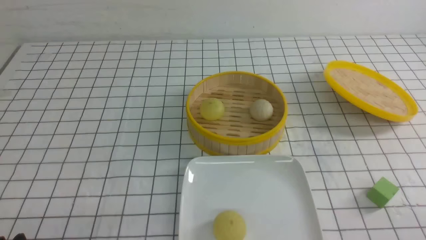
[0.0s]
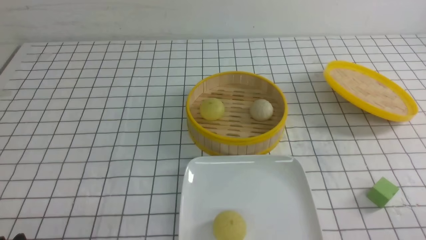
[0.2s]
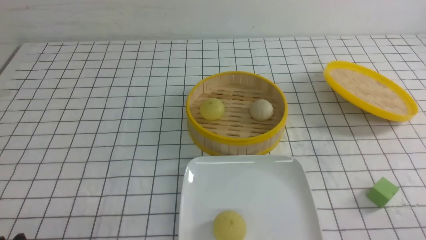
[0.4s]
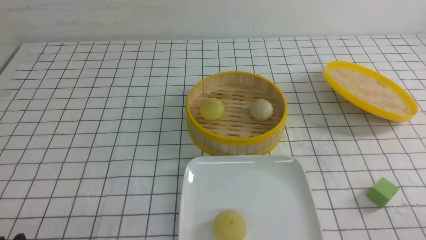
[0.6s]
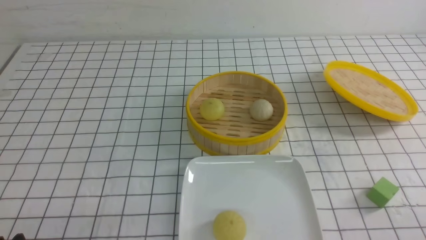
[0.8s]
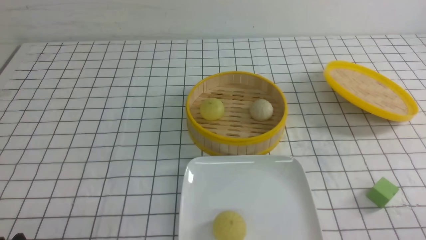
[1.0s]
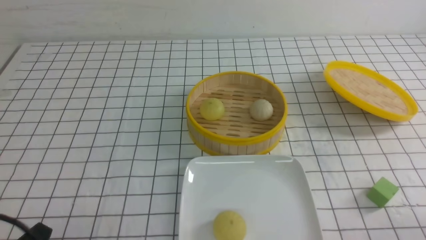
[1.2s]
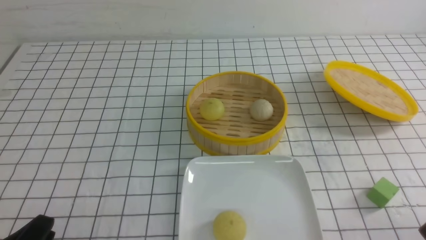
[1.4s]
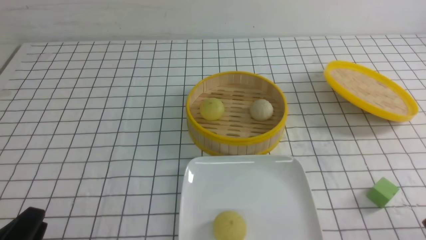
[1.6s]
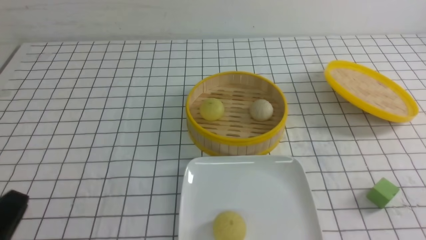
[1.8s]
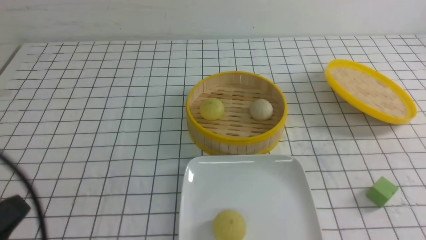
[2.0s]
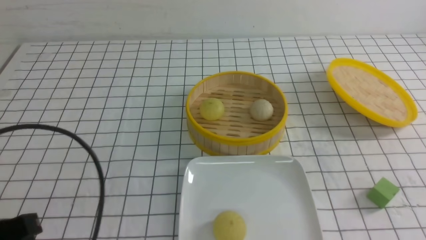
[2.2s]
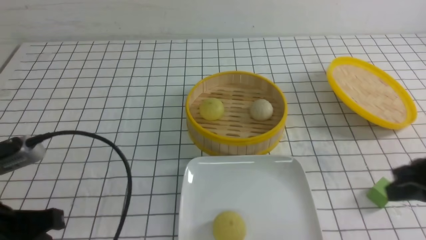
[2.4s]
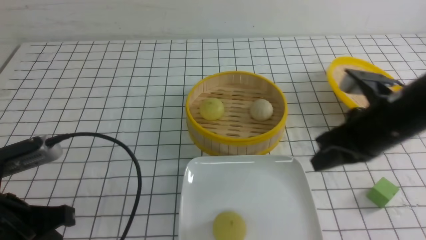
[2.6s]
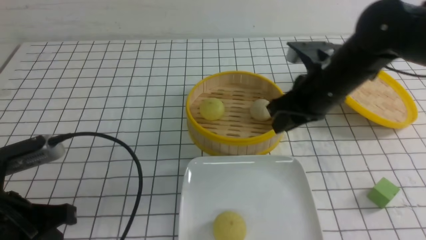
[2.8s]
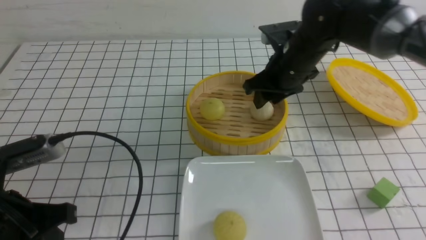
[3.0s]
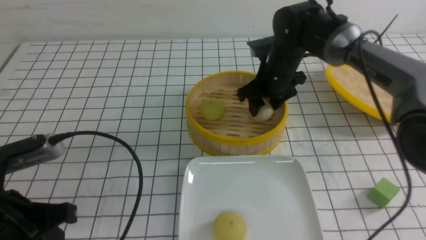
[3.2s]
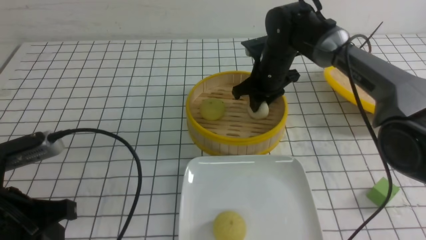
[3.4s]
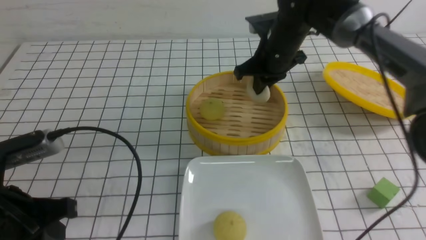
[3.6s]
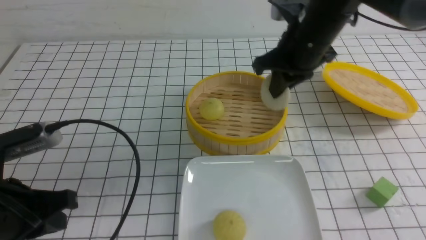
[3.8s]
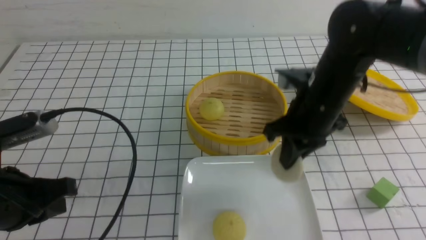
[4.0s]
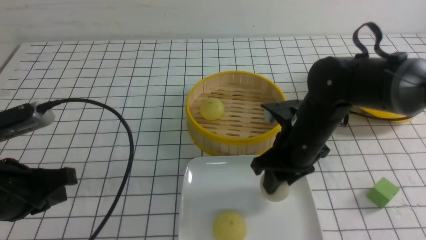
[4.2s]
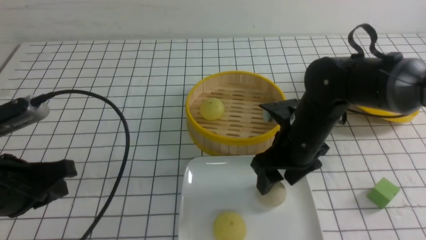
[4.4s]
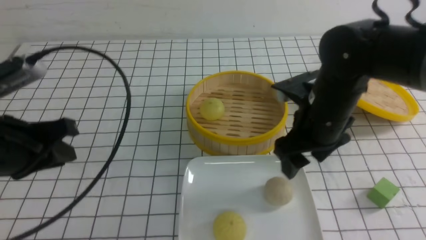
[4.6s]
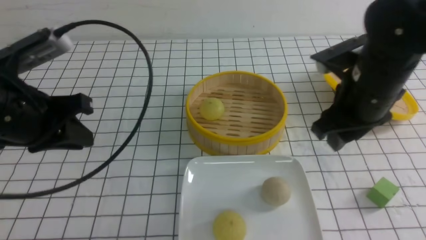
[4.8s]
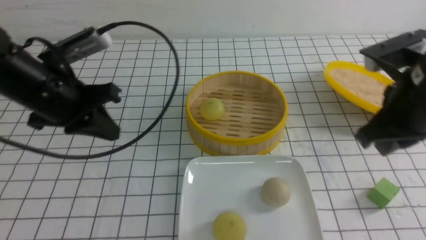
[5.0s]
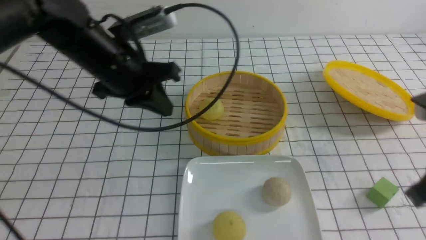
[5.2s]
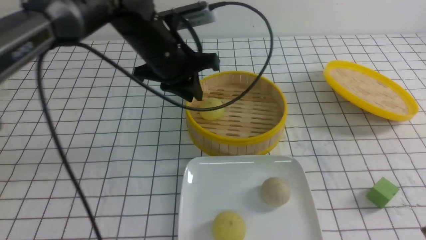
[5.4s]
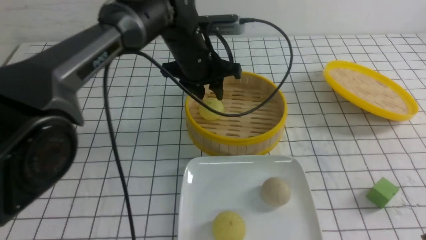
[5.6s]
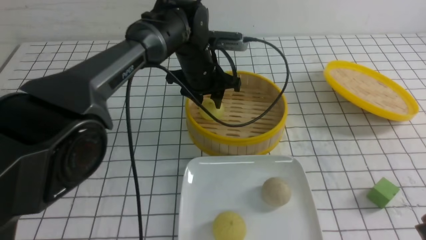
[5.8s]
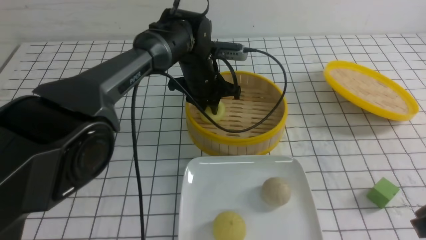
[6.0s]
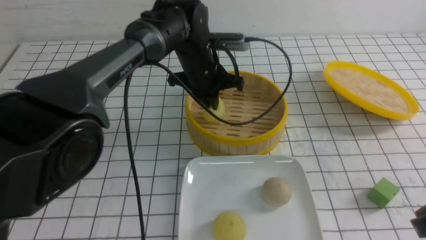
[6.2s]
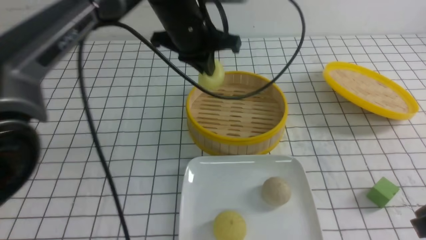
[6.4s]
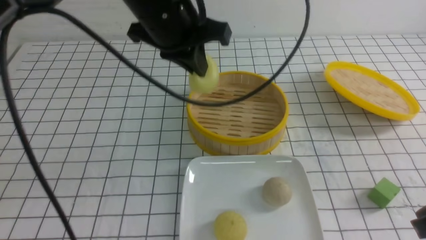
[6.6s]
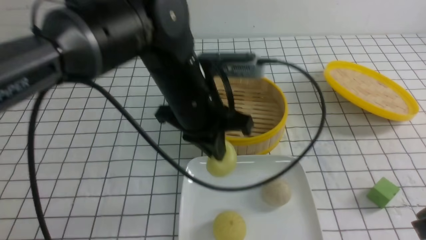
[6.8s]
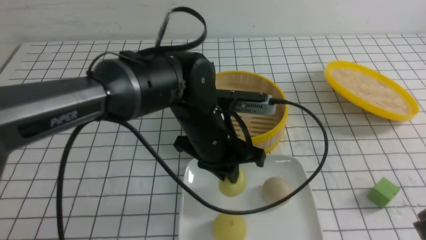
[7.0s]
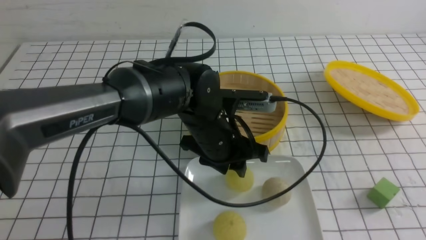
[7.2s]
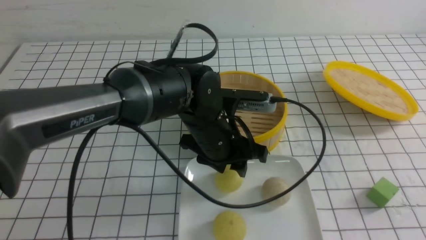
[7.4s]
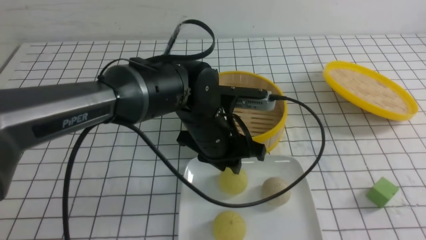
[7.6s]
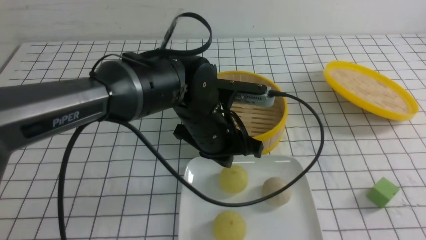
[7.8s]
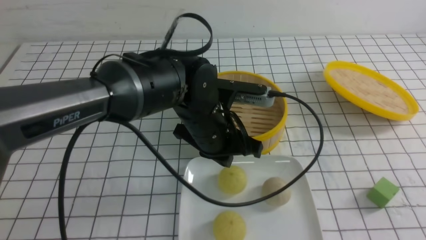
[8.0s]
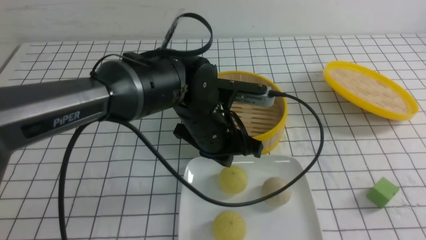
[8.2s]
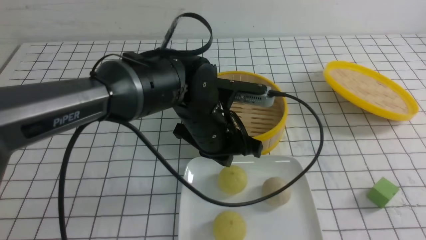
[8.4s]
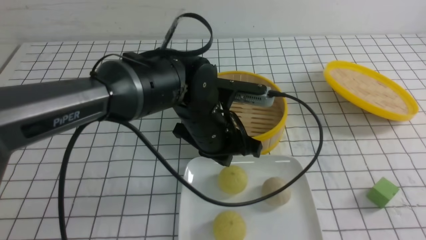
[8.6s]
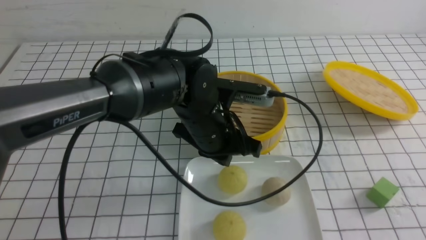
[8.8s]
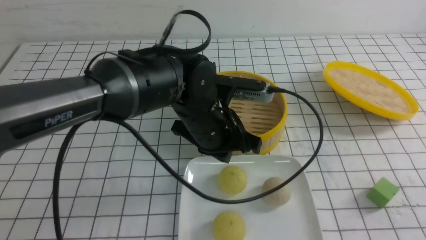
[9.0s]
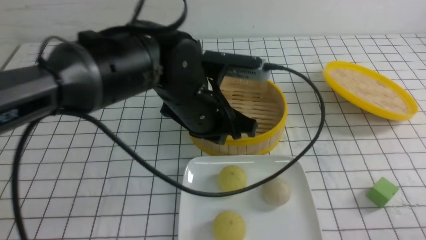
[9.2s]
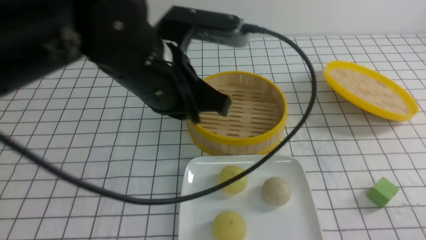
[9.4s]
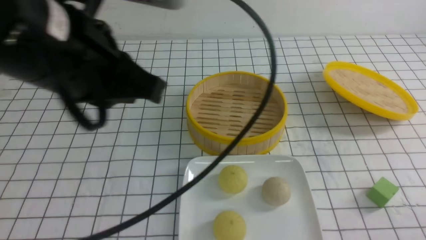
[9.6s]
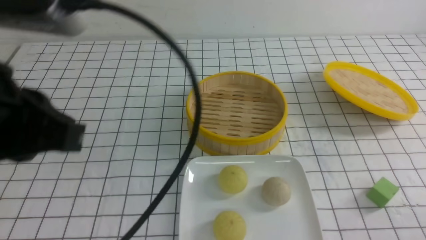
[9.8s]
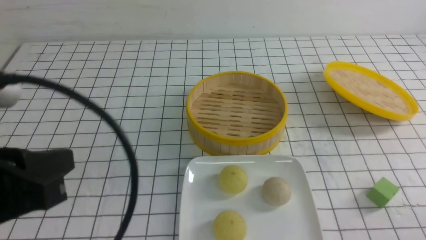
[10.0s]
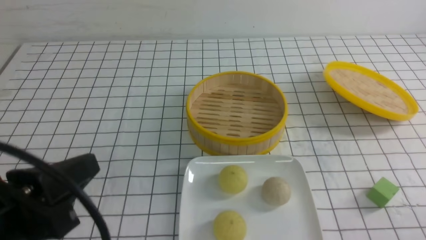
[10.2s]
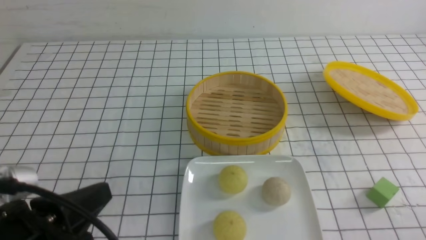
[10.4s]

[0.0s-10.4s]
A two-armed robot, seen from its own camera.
Step, 0.0s to 3.4s: use the right arm to grab the steamed stuffed bun that is closest to it.
Step, 3.8s to 4.6s: use the right arm to put the steamed stuffed bun into the plate.
Step, 4.8s to 6.2s: use the left arm to grab the steamed stuffed bun that is closest to it.
Step, 6.4s to 7.6s: use the left arm to put the steamed stuffed bun into the plate.
1.4s to 3.0s: The right gripper is displaced forward and to the left by roughly 40 cm, and closes, then opens again. Meanwhile the left gripper heads forward and upward, covering approximately 10 cm, and closes its fingers.
3.0s to 4.4s: The right gripper shifts some 10 cm backward, and closes, then opens again.
4.4s to 6.0s: The left gripper heads forward and to the right, covering some 35 cm, and opens, then closes once more, while the right gripper shifts roughly 20 cm backward and to the right, and closes.
6.0s to 7.4s: The left gripper moves backward, roughly 15 cm, and opens its fingers, while the right gripper heads backward and upward, covering about 10 cm.
7.4s to 9.0s: The right gripper moves downward, about 10 cm. The left gripper closes up.
9.0s to 10.4s: The right gripper heads downward, covering some 5 cm. The left gripper travels backward and to the left by some 30 cm.

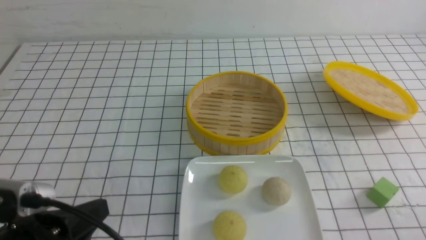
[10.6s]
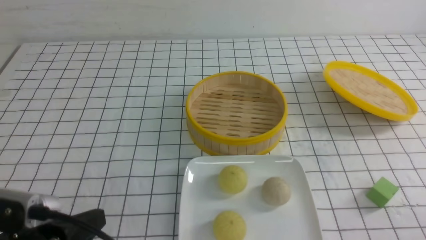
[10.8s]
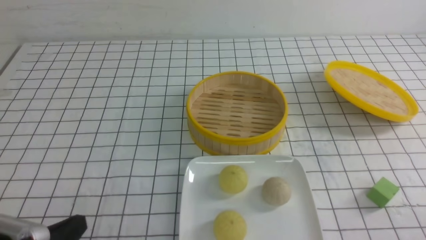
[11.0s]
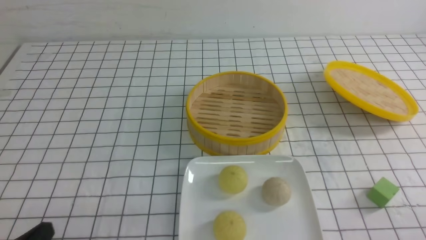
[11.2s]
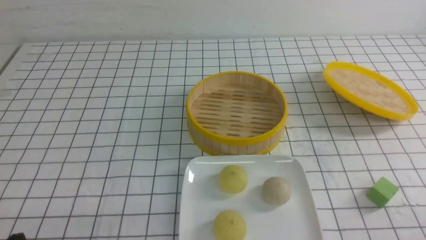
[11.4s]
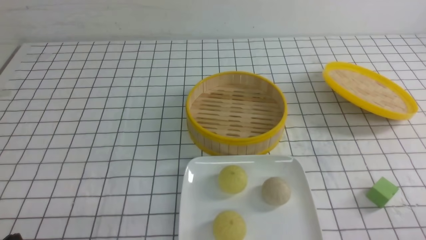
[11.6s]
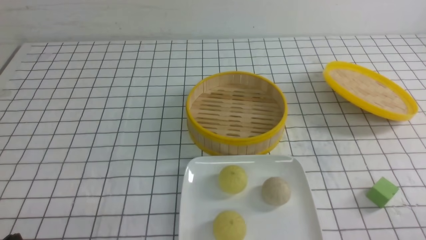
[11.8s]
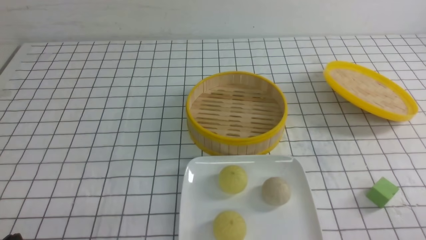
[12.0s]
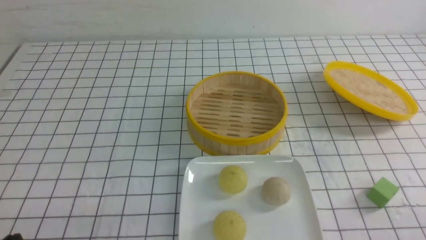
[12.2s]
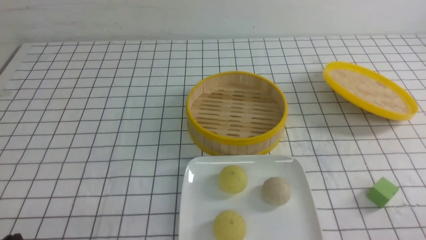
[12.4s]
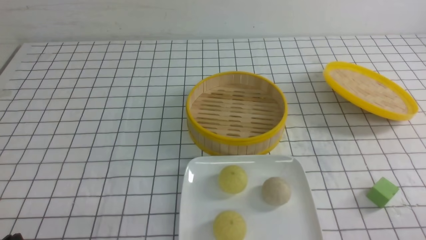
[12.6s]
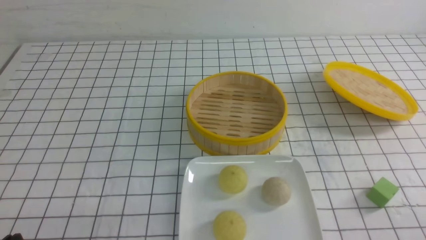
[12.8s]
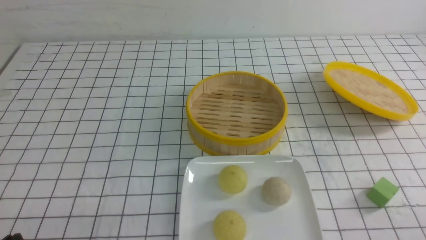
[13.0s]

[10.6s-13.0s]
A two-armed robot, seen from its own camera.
10.6s to 11.8s: The left gripper travels downward and to the left by some 10 cm.
11.8s to 13.0s: Neither gripper changes place.

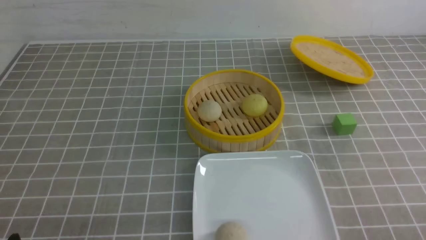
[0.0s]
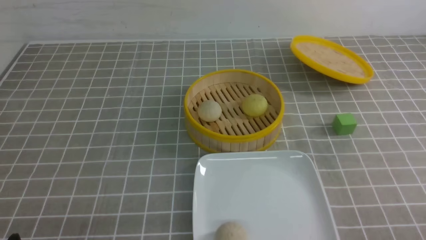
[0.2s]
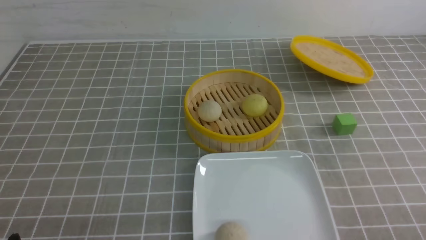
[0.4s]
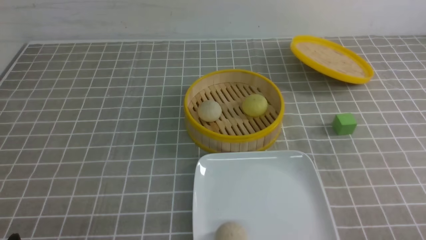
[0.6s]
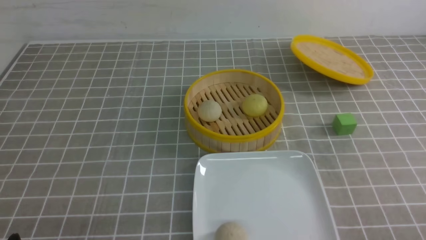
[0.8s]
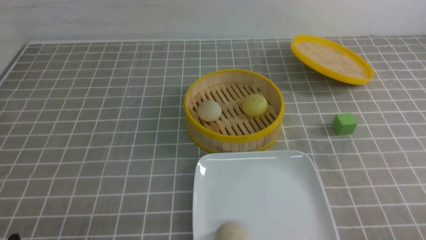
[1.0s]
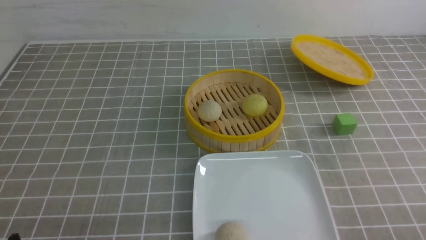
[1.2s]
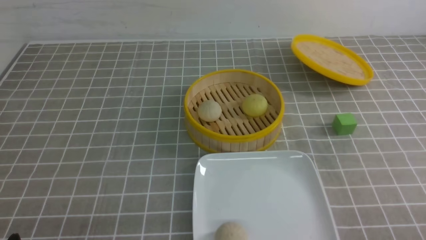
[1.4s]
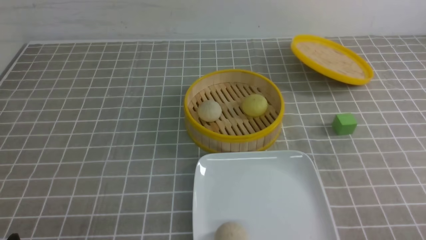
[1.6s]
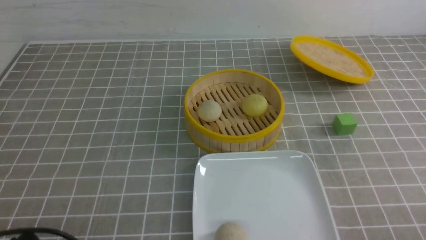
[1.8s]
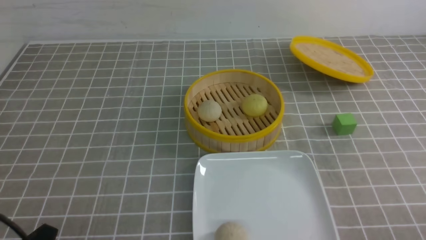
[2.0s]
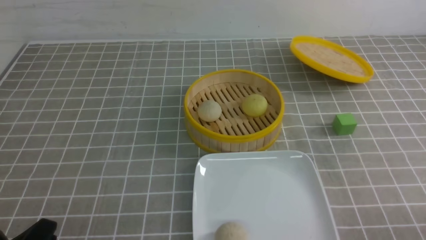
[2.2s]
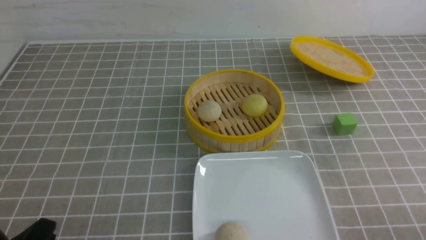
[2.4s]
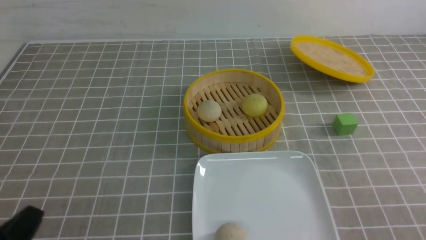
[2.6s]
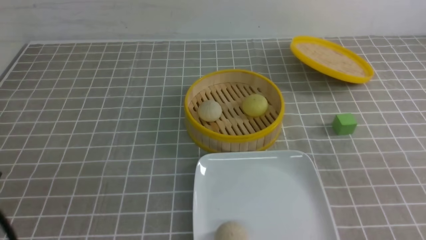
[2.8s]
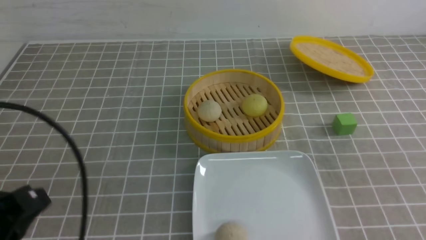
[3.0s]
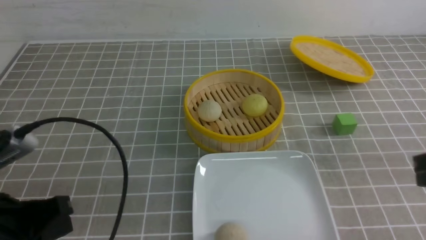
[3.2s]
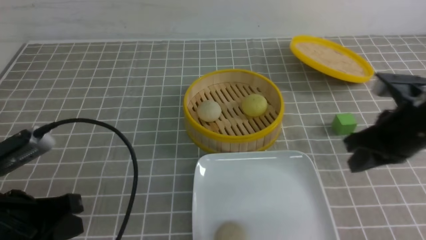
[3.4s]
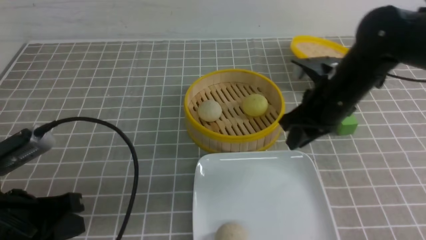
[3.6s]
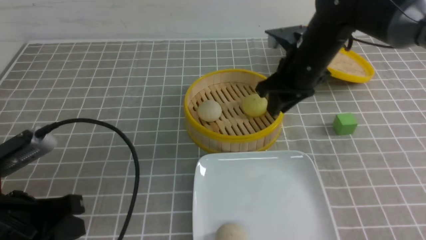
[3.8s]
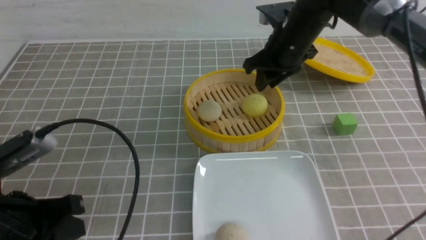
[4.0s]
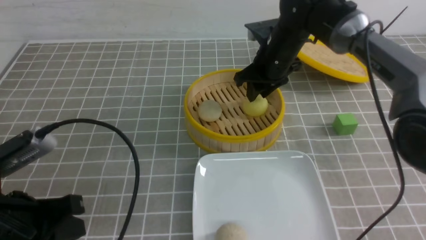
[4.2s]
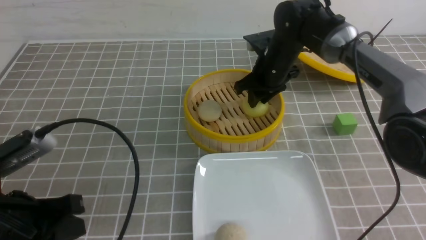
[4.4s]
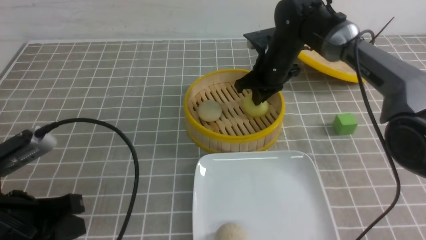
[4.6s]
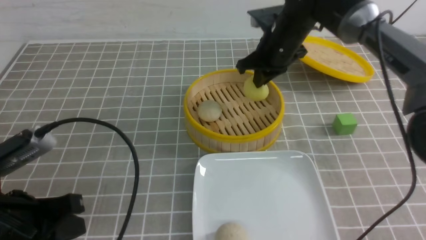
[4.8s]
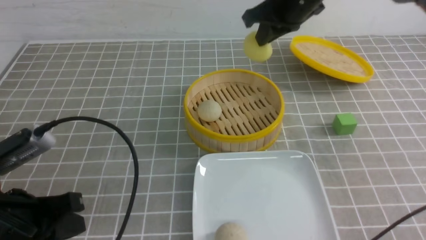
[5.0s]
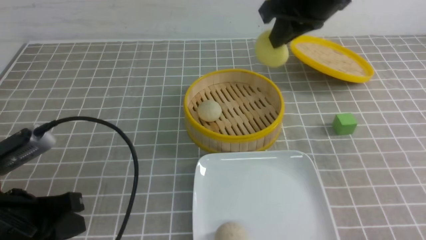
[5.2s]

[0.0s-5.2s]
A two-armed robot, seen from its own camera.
Step, 0.0s to 4.6s: use the right arm to grab the steamed stuffed bun that is closest to it.
1.8s to 3.4s: The right gripper travels forward and upward by approximately 25 cm, and closes. Meanwhile the left gripper moves forward and upward, some 10 cm, and closes up.
3.4s to 5.2s: The right gripper is displaced to the left, upward and forward by roughly 15 cm, and opens, then closes once more.
